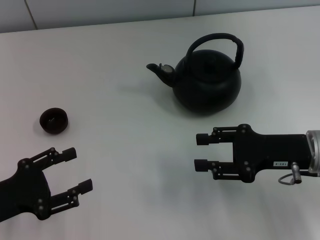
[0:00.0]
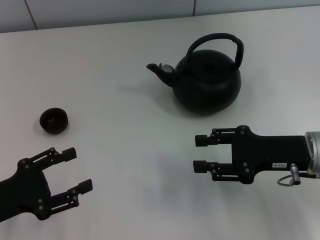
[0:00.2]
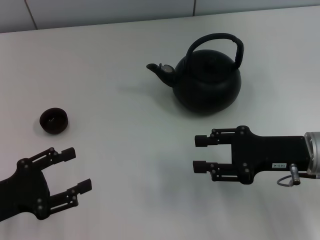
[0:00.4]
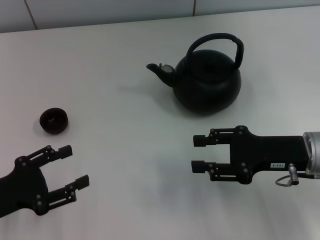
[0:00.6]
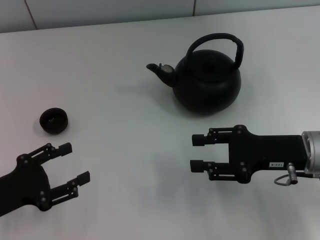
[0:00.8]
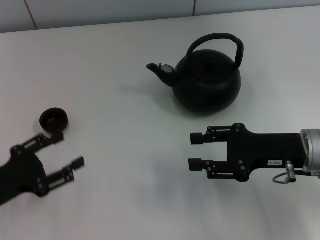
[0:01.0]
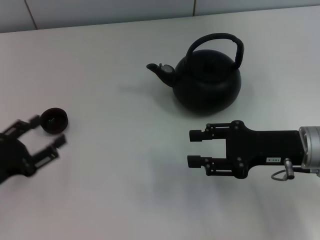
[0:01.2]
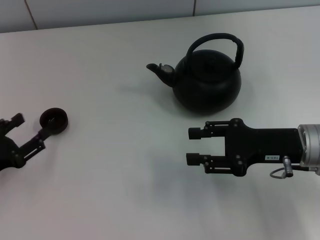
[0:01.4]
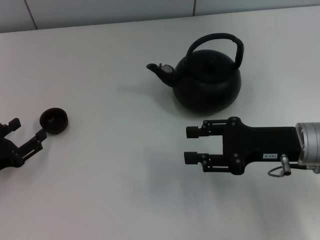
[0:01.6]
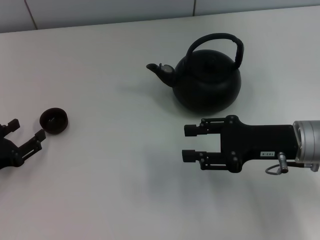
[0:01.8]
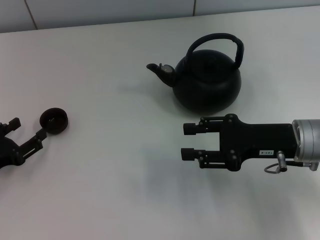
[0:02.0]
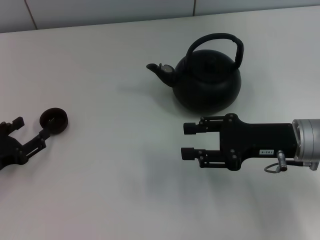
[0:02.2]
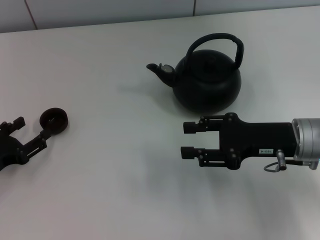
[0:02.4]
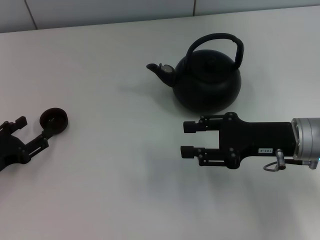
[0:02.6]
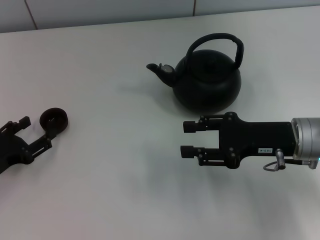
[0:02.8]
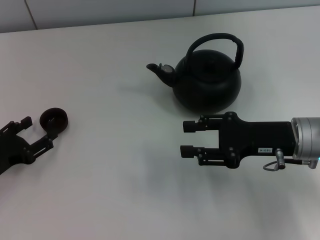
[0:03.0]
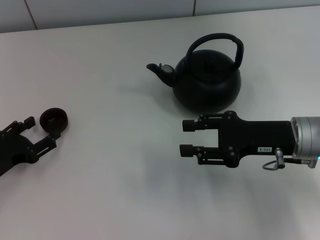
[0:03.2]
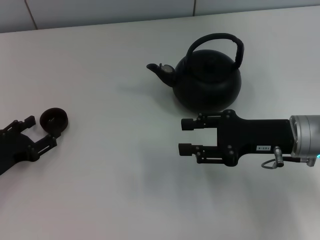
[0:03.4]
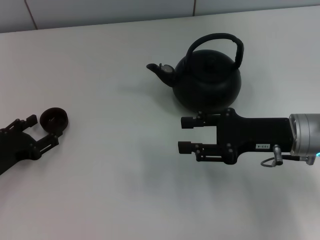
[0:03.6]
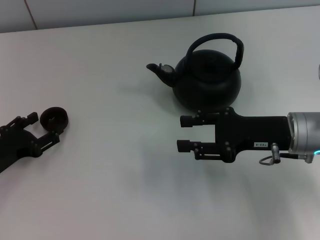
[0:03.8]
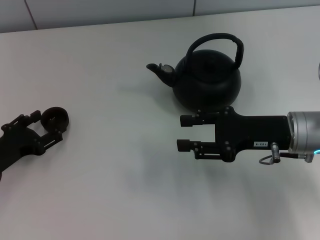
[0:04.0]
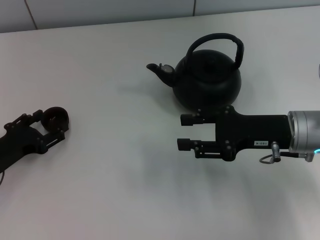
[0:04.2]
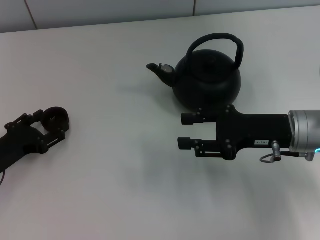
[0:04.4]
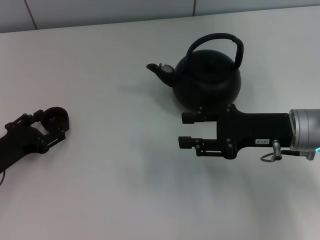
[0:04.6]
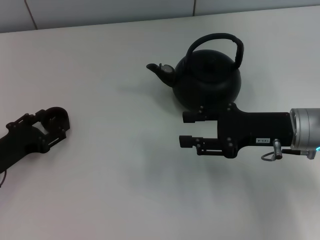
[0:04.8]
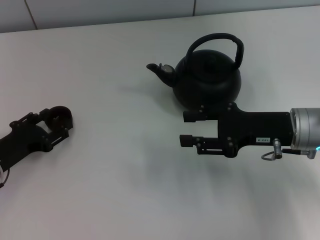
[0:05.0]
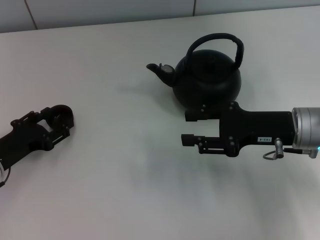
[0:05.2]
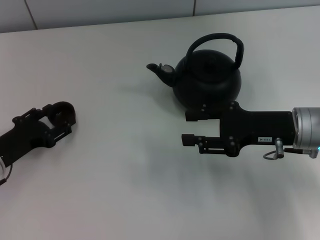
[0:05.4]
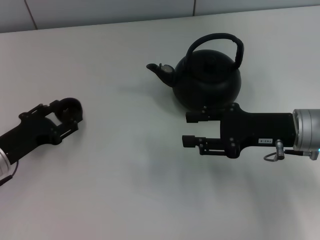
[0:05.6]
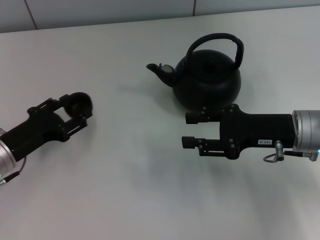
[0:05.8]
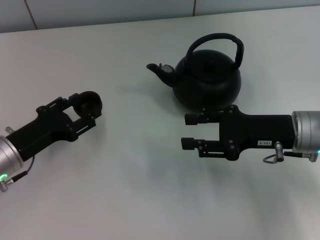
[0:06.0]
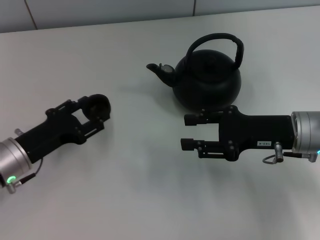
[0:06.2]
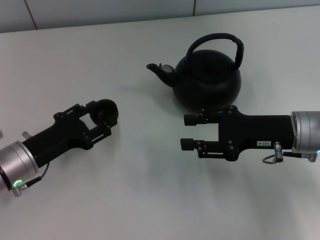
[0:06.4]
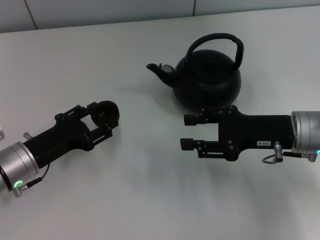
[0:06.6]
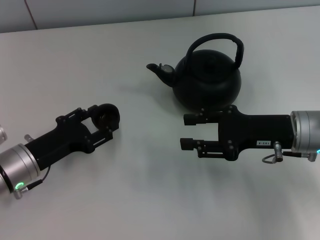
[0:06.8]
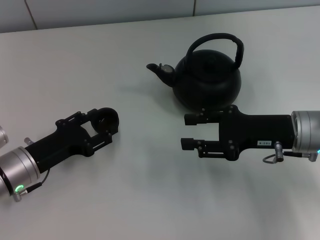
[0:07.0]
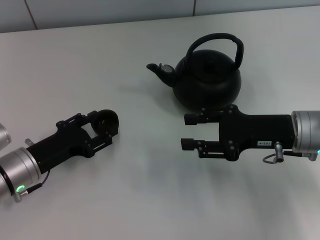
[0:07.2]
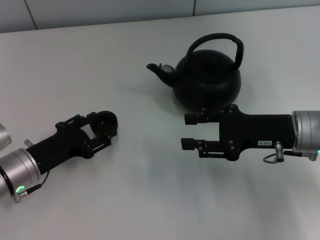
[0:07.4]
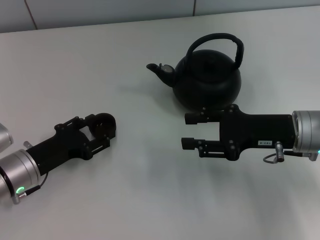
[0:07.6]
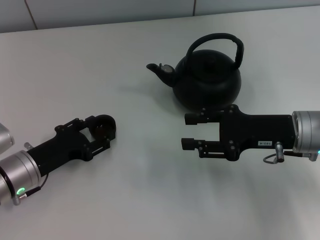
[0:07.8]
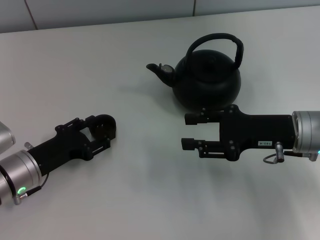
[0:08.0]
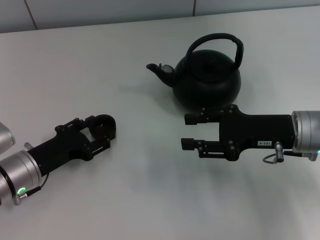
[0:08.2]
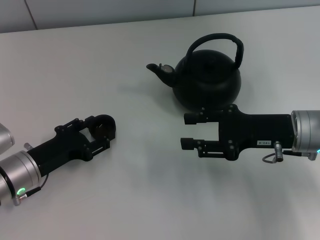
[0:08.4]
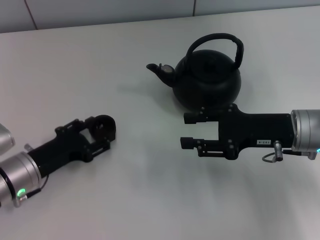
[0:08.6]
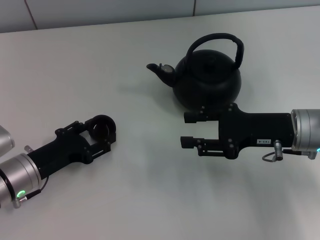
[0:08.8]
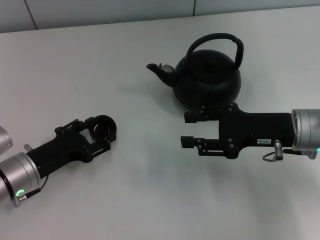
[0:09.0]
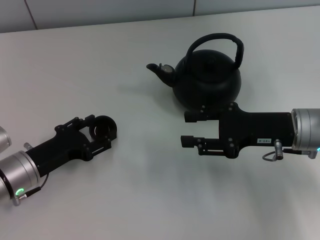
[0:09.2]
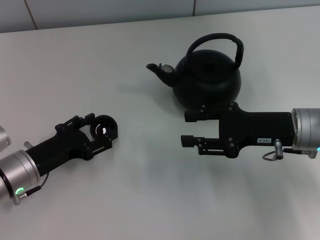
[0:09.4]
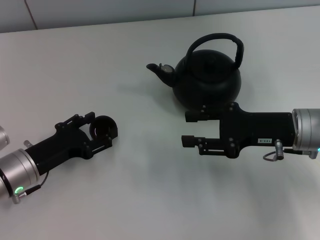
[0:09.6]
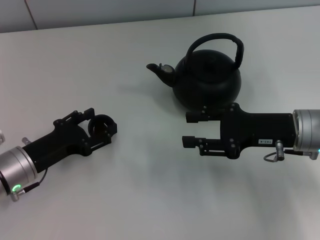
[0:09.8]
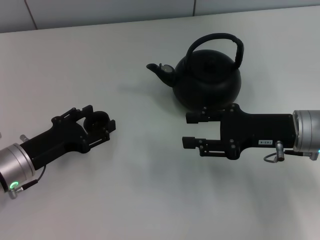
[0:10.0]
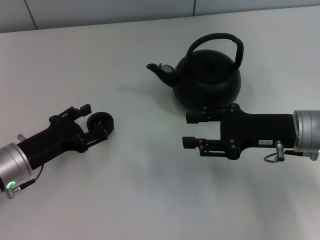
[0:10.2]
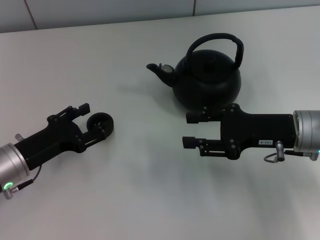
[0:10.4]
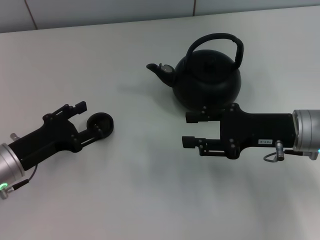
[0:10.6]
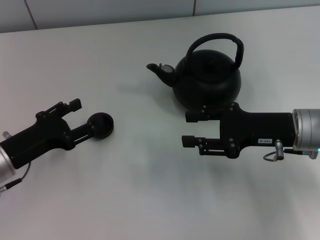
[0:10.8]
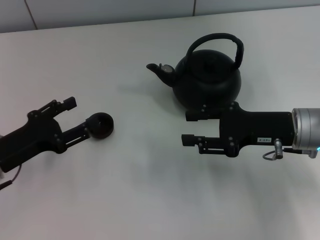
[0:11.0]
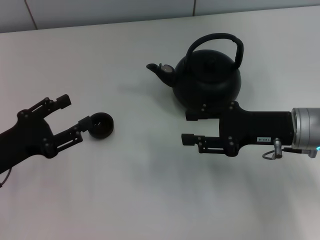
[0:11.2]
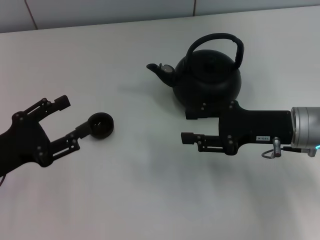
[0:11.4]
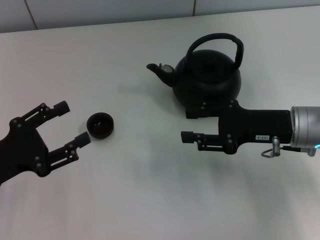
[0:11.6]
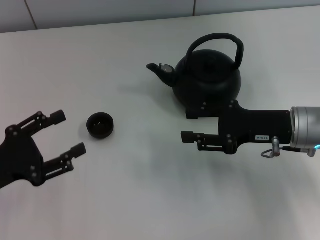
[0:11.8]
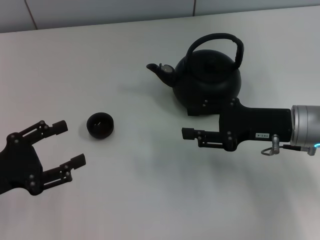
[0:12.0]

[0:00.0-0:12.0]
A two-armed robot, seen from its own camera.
Task of the whole recording: Grasp the handle of the teapot with one hand and pour tea into the teacup.
Step, 0:00.0 to 0:05.8: Pick up the teacup with the left gripper.
Step, 0:06.2 to 0:11.0: Place the teacup in the center of view with the left gripper.
0:00.0 to 0:01.6: The left gripper ends up approximately 5 cm from where it was.
0:01.6 to 0:04.4: The grippers make only small movements.
0:04.4 to 0:07.6: The grippers move only a little.
0:07.6 to 0:09.0: Both grippers stay put.
0:09.0 to 0:10.4: The grippers stay close to where they were, moving slightly.
0:10.4 to 0:12.0: The left gripper heads to the left and backward, covering about 5 cm.

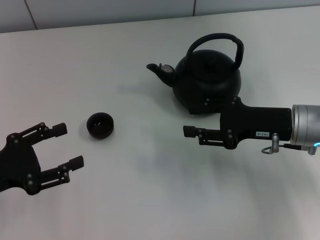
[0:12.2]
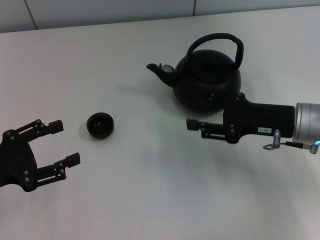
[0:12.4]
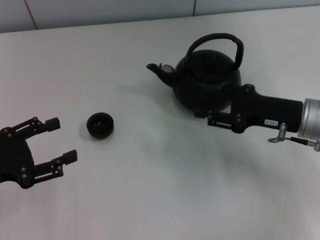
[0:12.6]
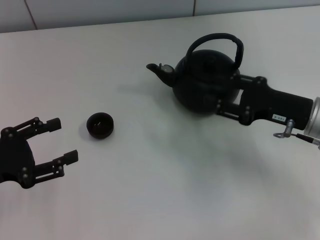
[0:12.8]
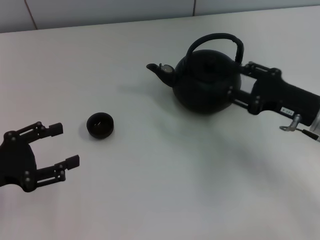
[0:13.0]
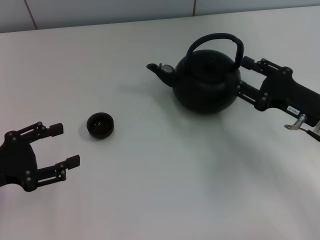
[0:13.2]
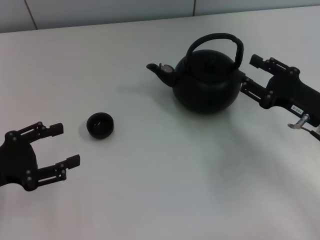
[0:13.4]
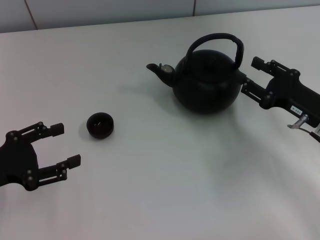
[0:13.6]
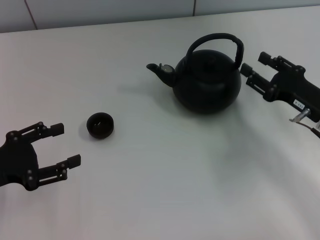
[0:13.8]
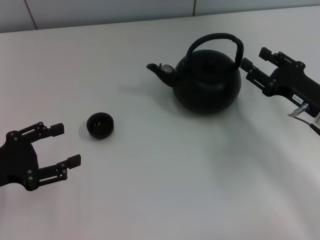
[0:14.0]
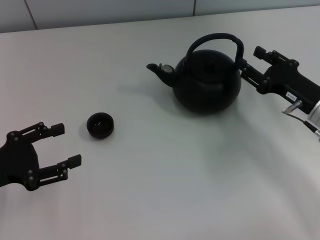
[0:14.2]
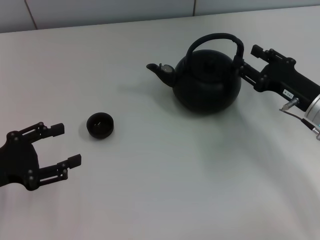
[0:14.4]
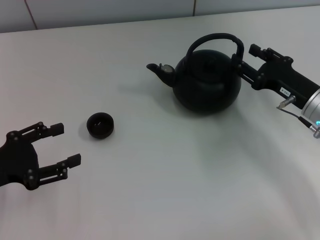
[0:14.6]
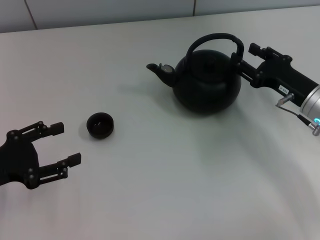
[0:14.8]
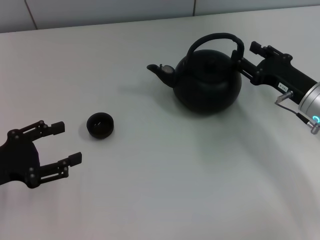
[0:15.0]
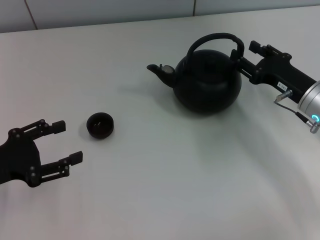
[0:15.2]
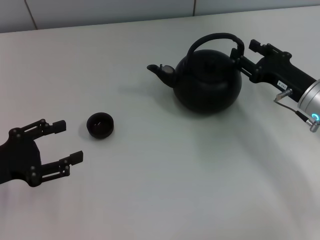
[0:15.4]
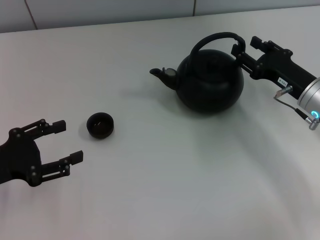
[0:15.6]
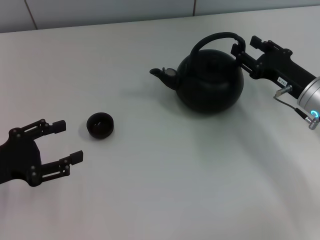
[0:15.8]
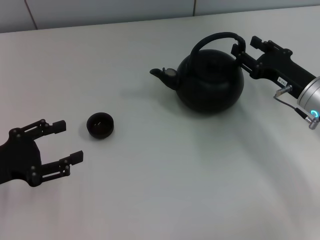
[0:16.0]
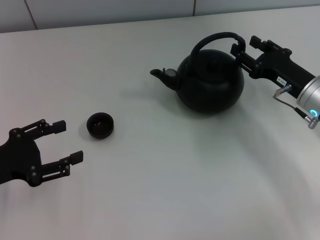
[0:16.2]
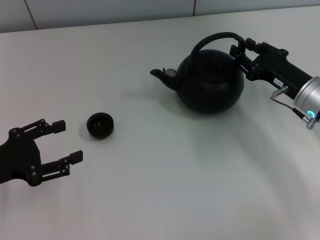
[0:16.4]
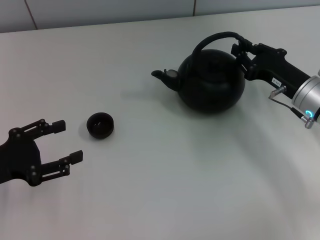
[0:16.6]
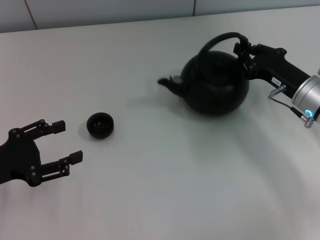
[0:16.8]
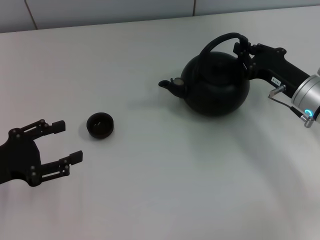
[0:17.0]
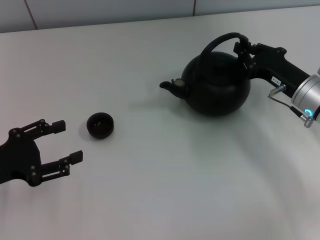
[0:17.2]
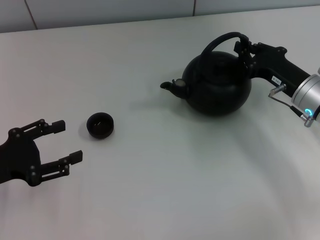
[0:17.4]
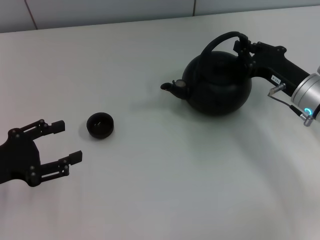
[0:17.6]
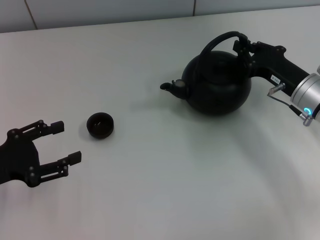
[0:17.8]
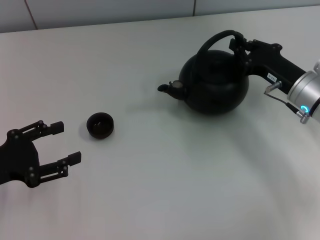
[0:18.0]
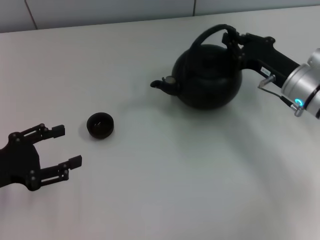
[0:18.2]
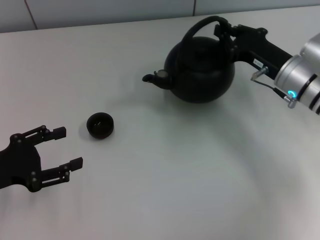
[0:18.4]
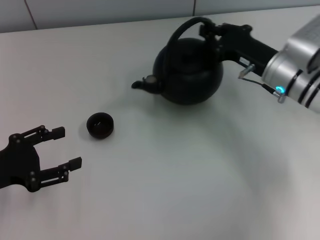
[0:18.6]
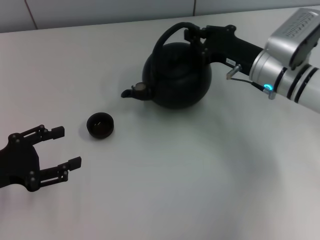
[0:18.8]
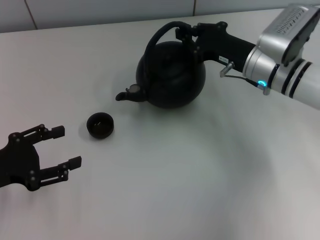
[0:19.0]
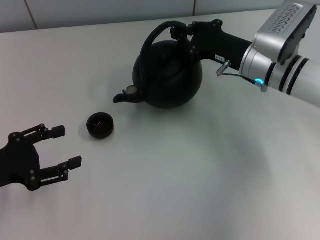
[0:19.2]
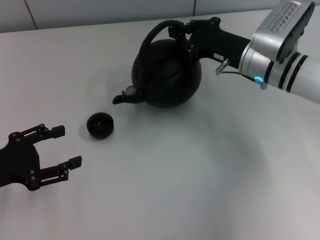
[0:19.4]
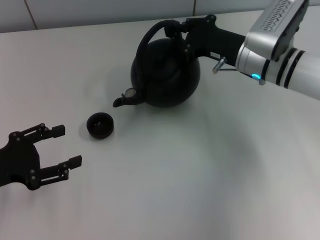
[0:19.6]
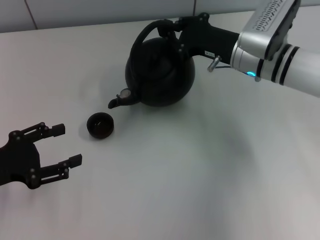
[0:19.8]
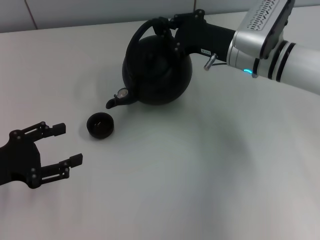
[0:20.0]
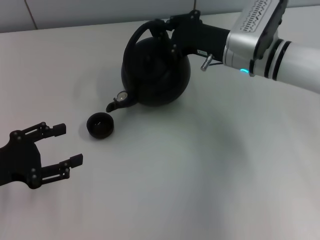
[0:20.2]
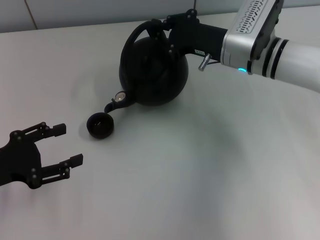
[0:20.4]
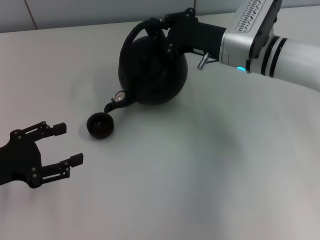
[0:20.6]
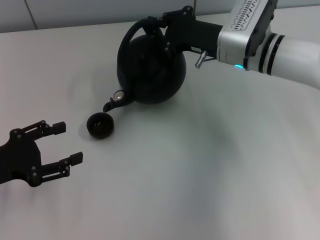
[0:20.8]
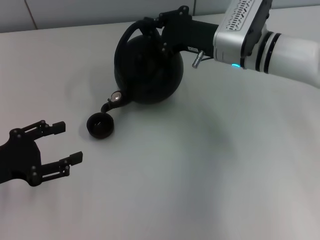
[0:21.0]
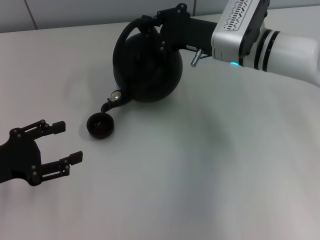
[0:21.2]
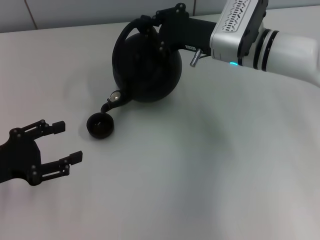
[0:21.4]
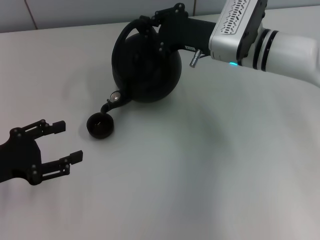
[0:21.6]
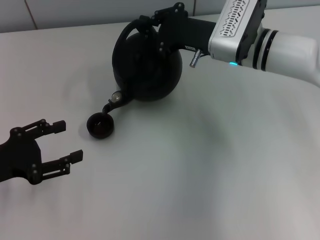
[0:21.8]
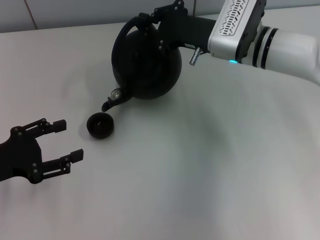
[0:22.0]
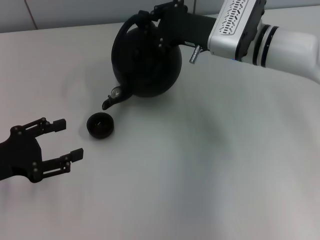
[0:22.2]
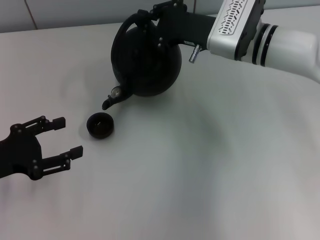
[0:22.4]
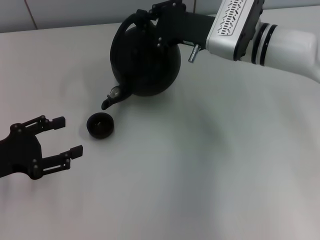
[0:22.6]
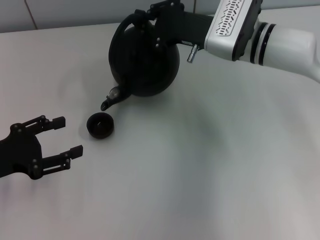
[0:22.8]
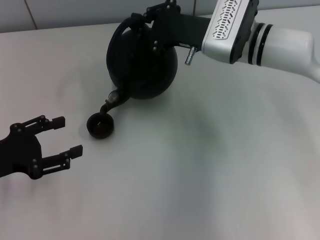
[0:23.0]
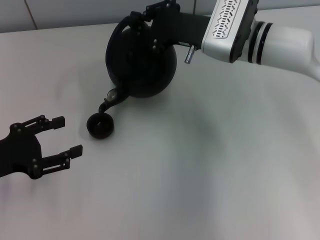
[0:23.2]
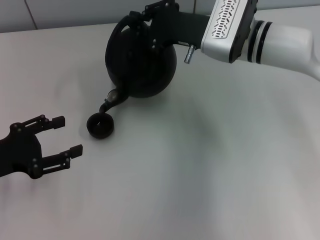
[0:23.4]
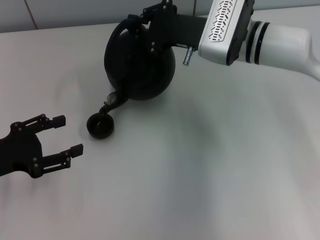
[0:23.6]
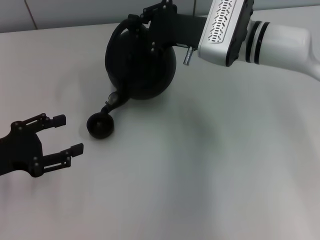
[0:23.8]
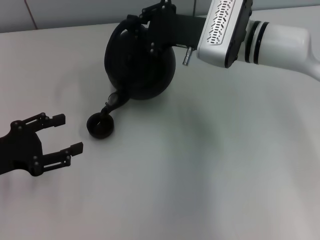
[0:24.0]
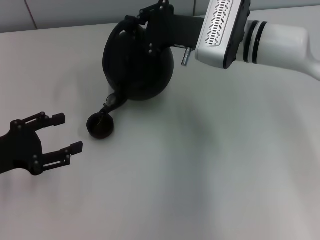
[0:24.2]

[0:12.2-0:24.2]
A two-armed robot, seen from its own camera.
Task of the whole recording: Grasp the handle of the teapot with one hand and pour tea into the teacup.
Step, 0:12.2 to 0:18.2: Pick up the teapot with the right gripper.
0:12.2 to 0:13.8: The right gripper changes place by about 5 cm.
0:13.8 to 0:15.2: The grippers stay close to where they were, moving slightly.
0:15.2 to 0:16.6: The two grippers keep their place.
0:16.6 to 0:18.2: The right gripper closes up.
0:18.2 to 0:19.8: The right gripper heads to the left and forward, covering about 10 cm.
0:19.8 to 0:22.6: The grippers stay close to where they were, moving slightly.
0:22.6 to 0:24.2: There are only small adjustments of the grippers.
